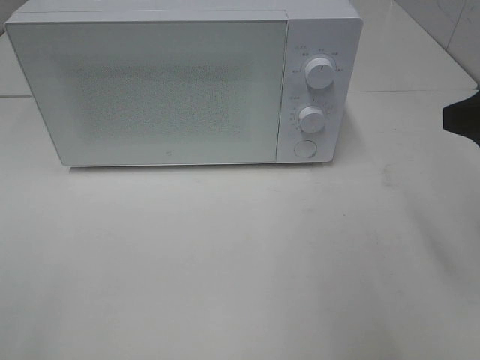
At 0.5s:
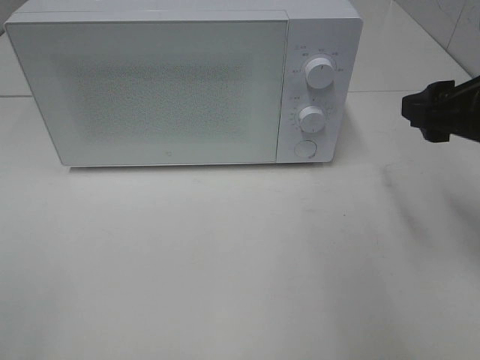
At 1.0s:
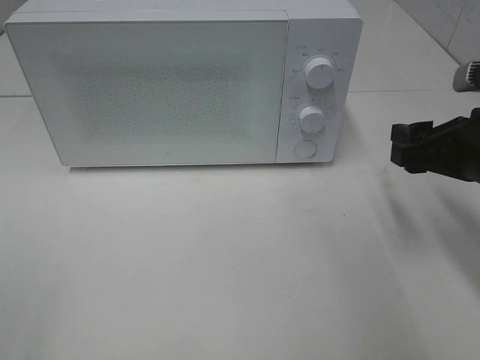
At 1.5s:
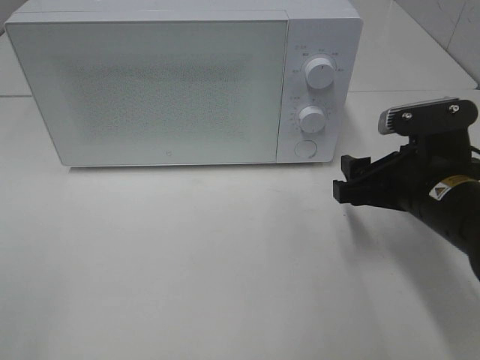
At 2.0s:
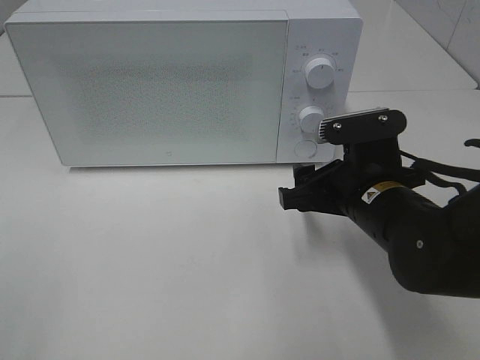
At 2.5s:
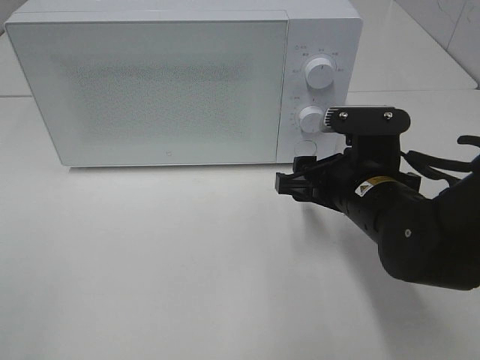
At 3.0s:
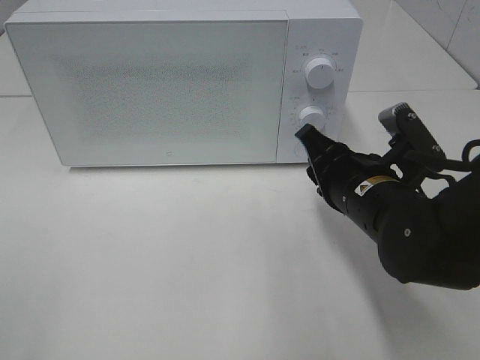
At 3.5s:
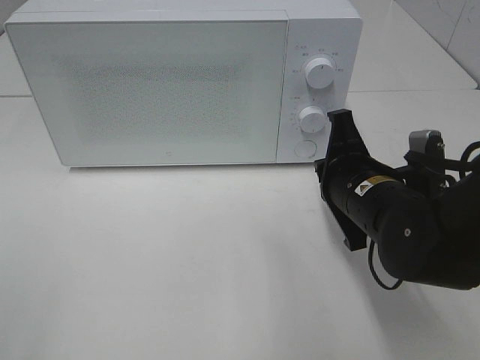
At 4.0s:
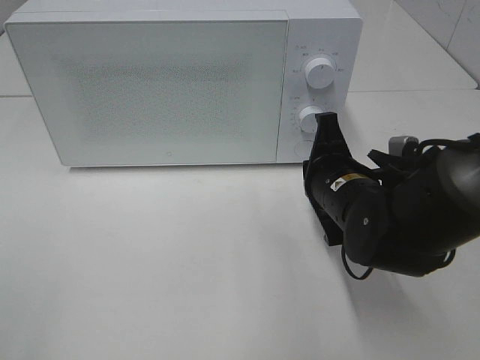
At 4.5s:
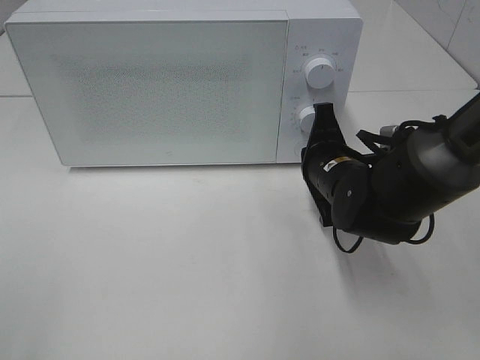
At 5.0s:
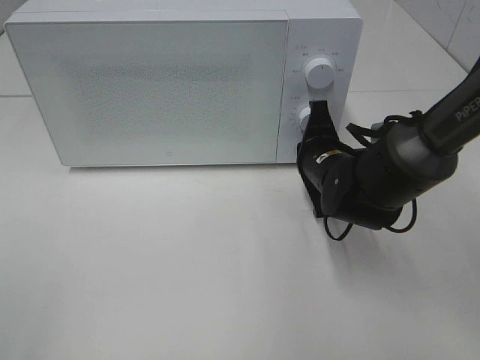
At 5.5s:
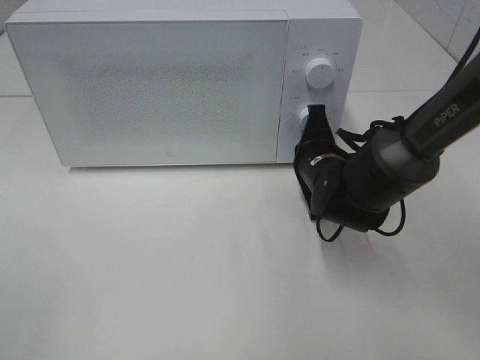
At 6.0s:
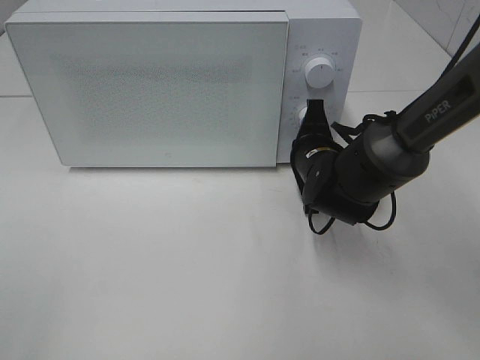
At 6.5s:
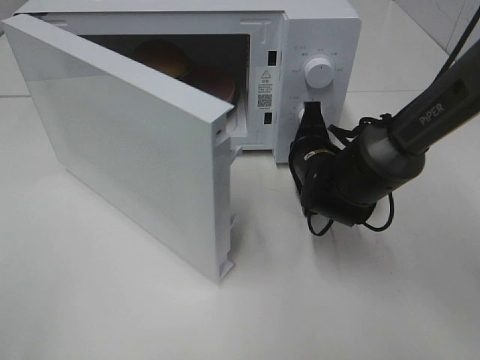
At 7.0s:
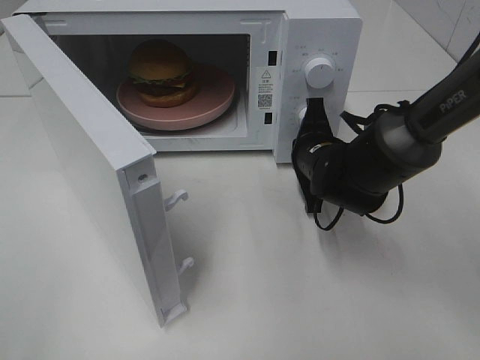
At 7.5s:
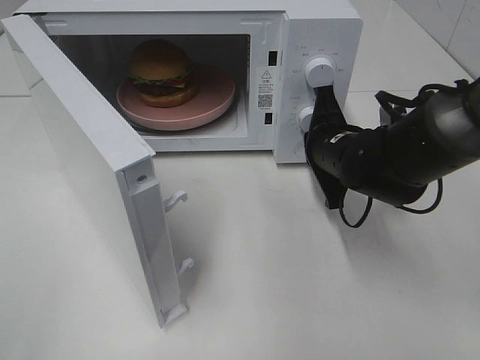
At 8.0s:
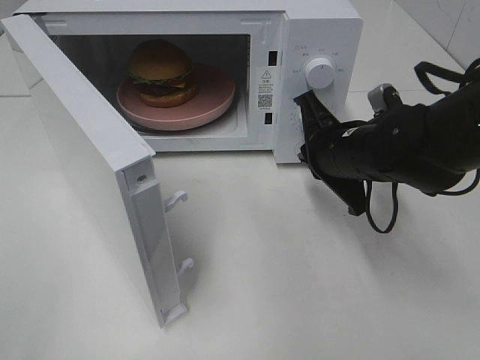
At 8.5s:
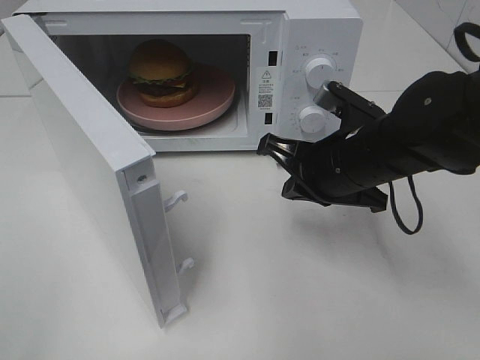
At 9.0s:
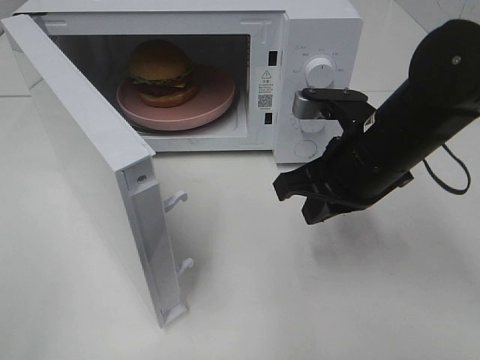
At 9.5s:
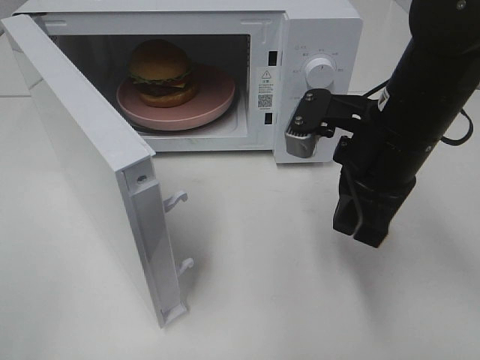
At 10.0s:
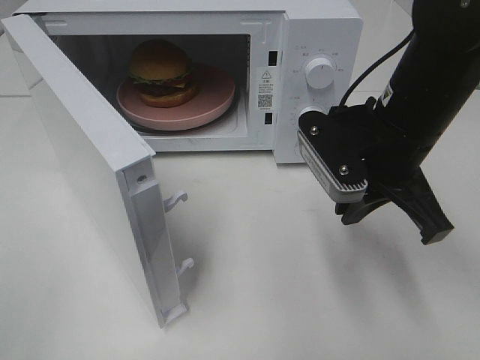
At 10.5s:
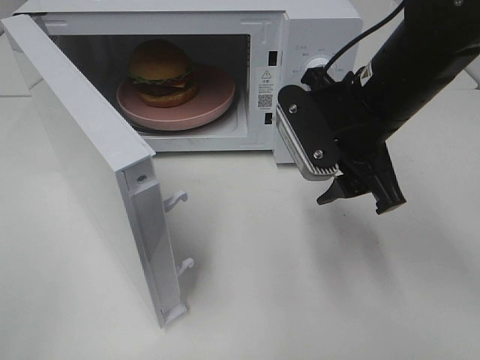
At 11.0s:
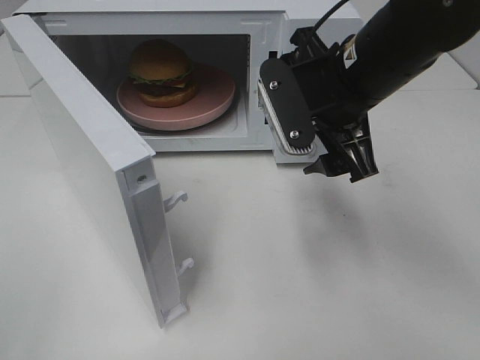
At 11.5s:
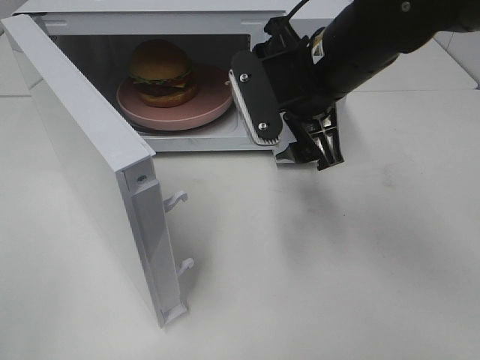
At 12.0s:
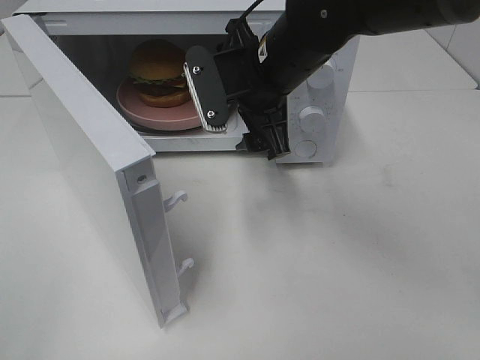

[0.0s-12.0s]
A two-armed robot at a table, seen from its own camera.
Task of the whole recording: Heat the burger.
Step, 0.0s to 7.5s: Right hand: press the switch.
0.0s to 2.0s: The right gripper moves downward, to the left and forward, roughly 20 cm.
2.0s to 4.0s: The right gripper closes.
4.0s to 6.0s: The right gripper heads forward, covering some 10 cm.
6.0s to 8.0s: The right gripper moves upward and backward, about 10 cm.
8.0s to 10.0s: The right gripper is displaced upward by about 5 cm.
10.0s to 12.0s: The right gripper travels to the left and forward by roughly 15 cm, and opens.

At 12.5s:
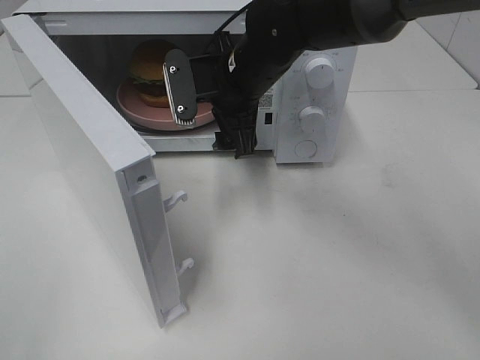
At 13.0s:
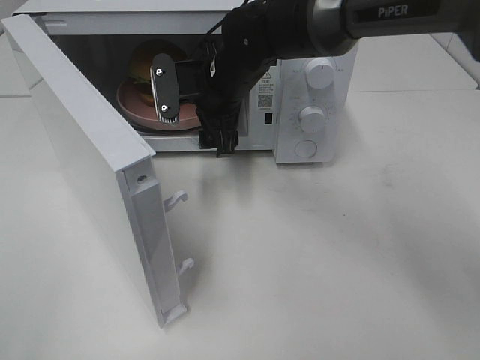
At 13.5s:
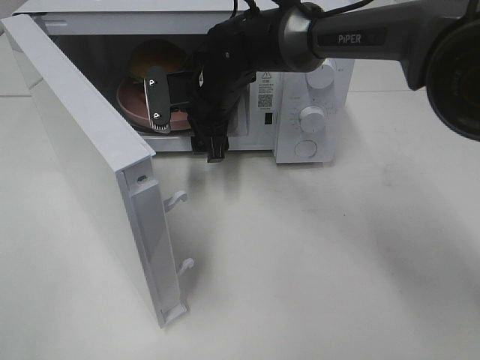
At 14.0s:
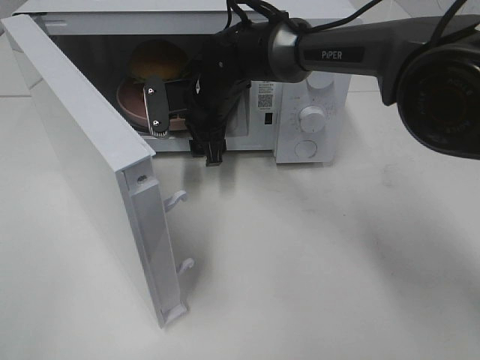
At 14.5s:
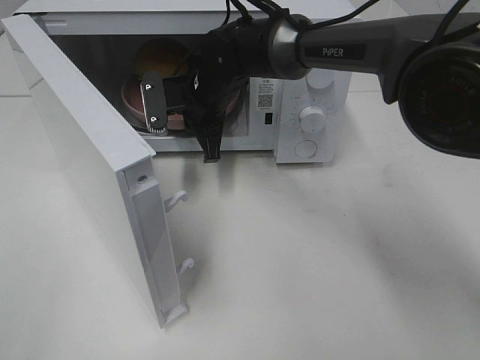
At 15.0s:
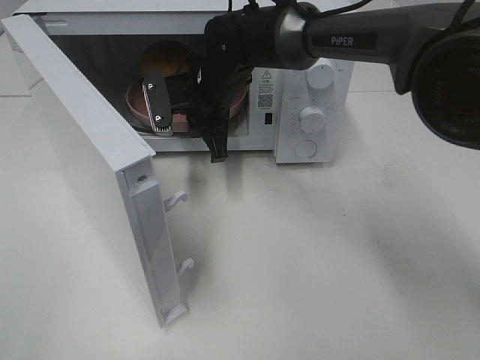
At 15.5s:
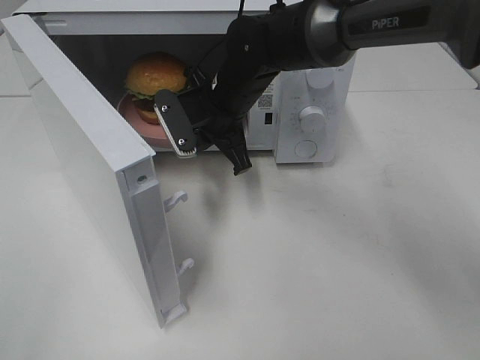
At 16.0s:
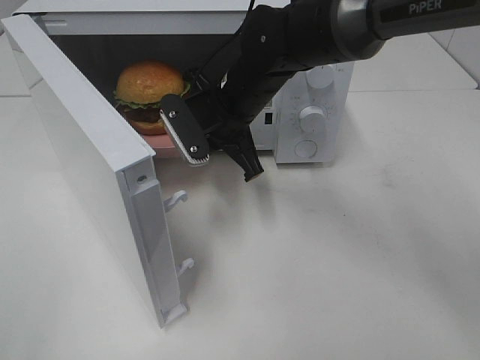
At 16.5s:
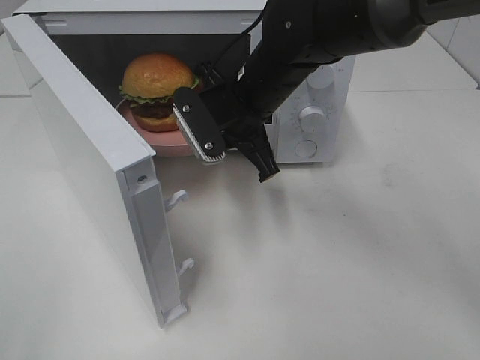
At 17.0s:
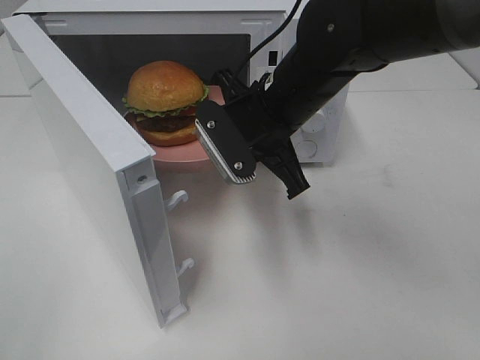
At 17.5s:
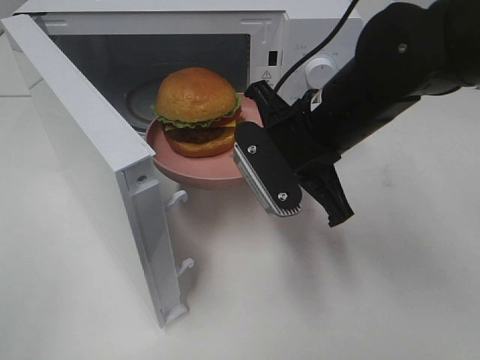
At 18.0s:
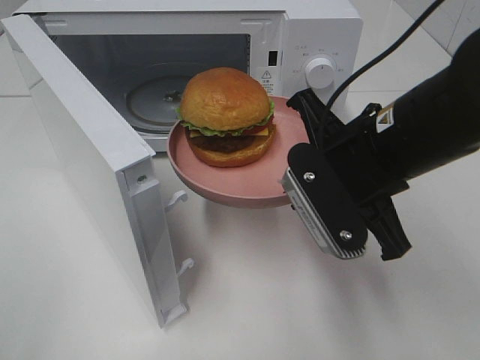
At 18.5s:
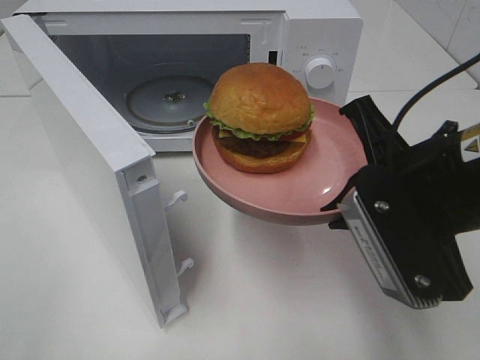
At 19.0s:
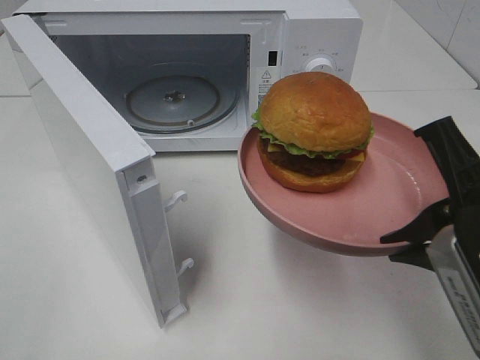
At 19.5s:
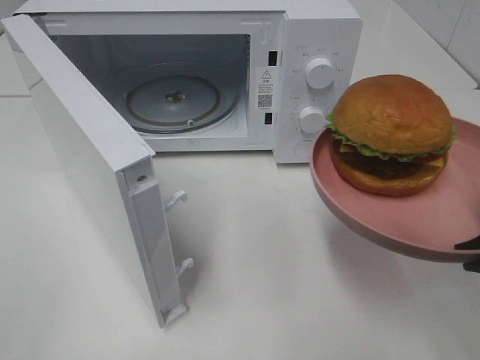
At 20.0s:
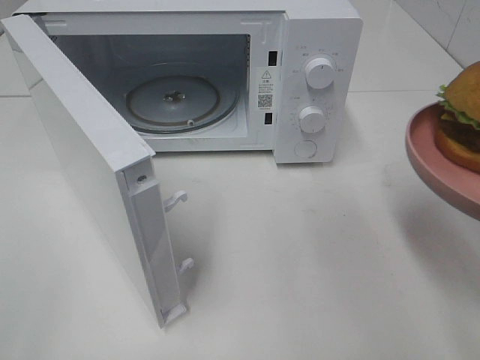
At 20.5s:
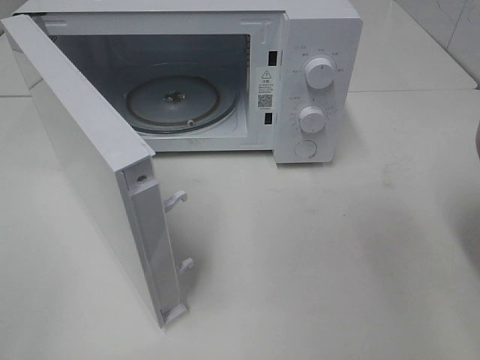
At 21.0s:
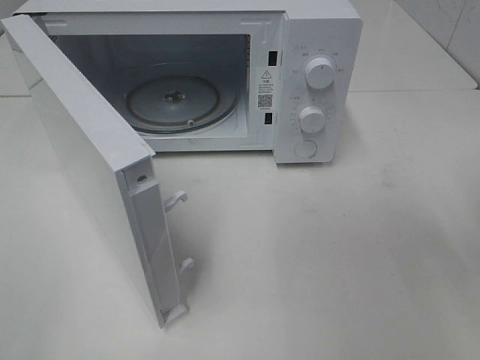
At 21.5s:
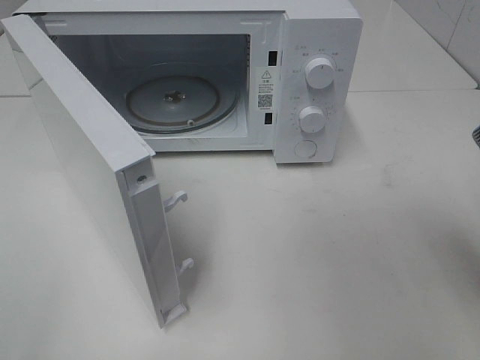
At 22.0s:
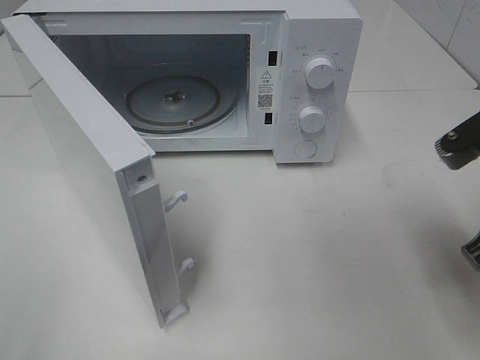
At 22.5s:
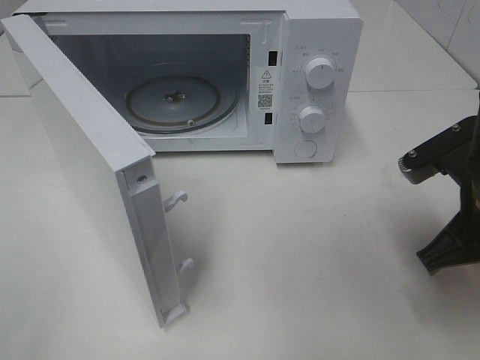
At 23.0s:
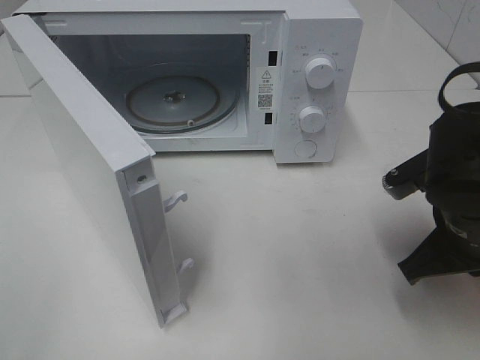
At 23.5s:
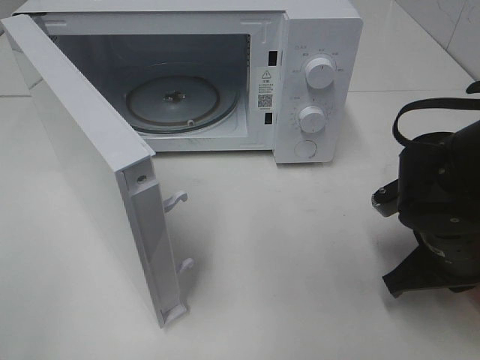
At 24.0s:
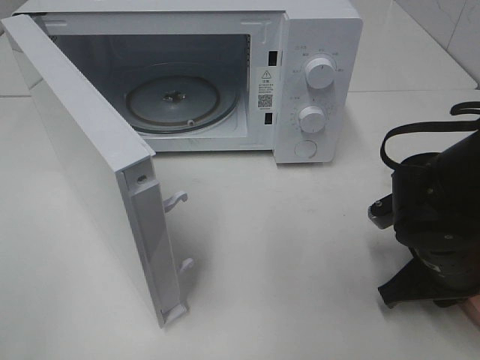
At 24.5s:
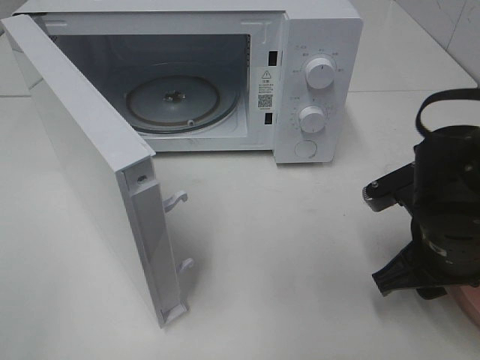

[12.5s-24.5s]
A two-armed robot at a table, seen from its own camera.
Task of the whole recording: Heat the burger.
Step, 14.5s to 24.0s: Right hand: place the plate on the table.
12.5s to 14.5s: The right gripper is displaced forward and downward by some 10 cm, and closes.
14.5s to 16.5s: The right gripper shifts approximately 10 cm backward and to the right.
16.5s to 18.5s: The right gripper travels backward and to the right by roughly 20 cm.
18.5s to 20.5s: The right gripper travels to the right and backward by some 10 cm.
20.5s to 22.5s: The right gripper is displaced forward, downward and to the left by roughly 10 cm.
22.5s to 24.5s: The right gripper opens.

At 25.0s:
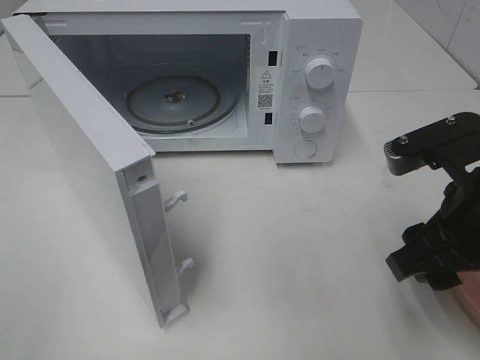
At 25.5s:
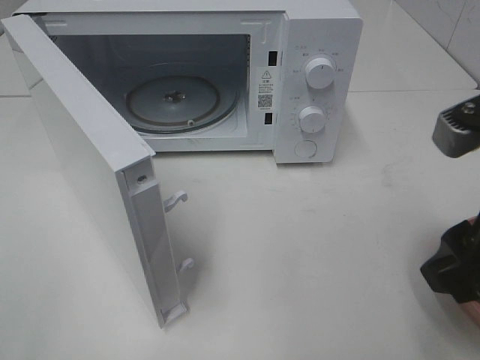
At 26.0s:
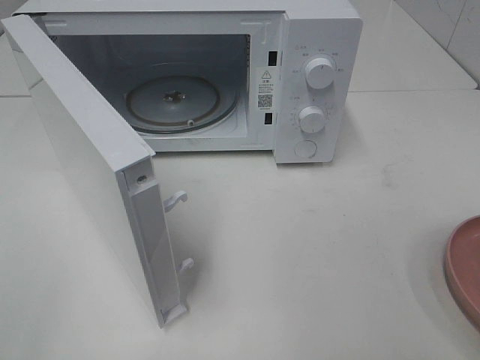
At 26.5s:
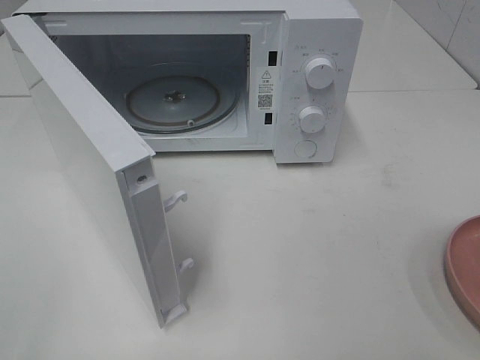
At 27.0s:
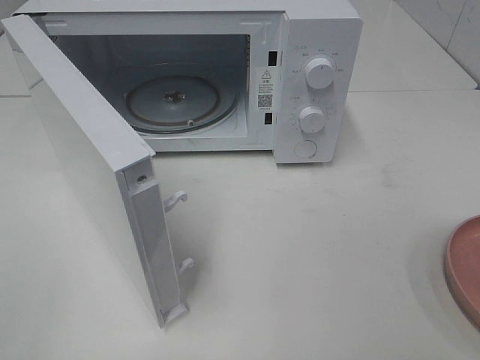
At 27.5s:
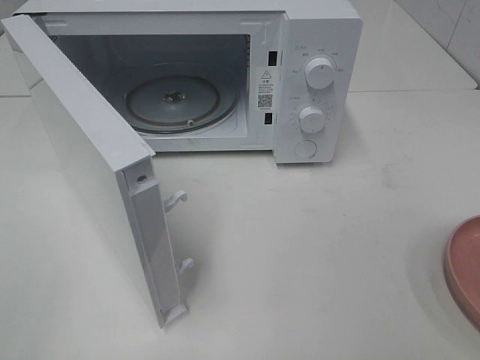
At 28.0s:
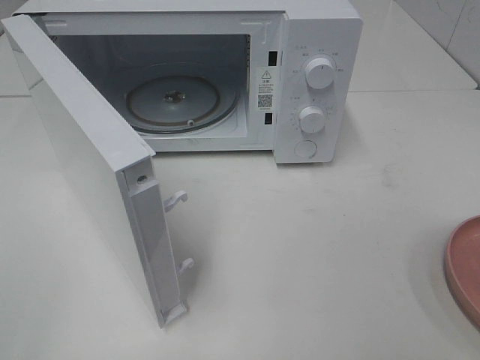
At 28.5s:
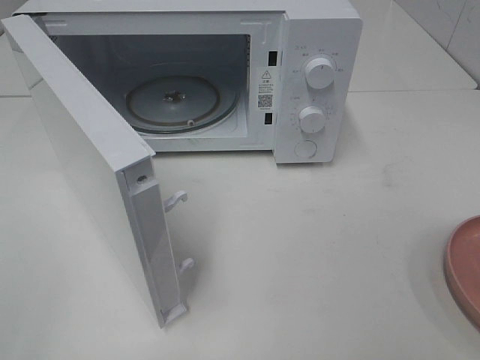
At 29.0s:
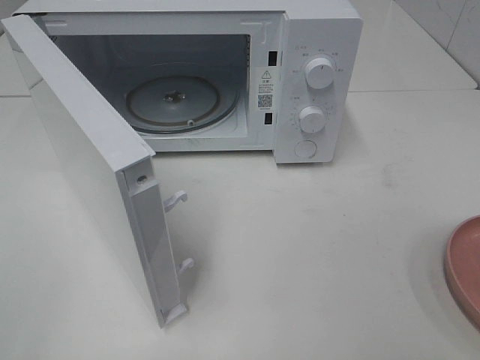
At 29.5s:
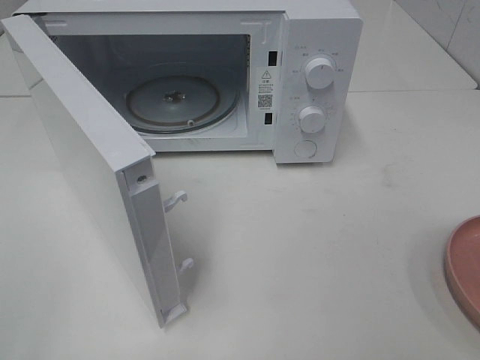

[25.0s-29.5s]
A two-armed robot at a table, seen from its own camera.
Task of the whole recording: Heat the burger.
25.0s to 27.0s: The right gripper heads backward, to the right and upward, covering some 20 cm.
